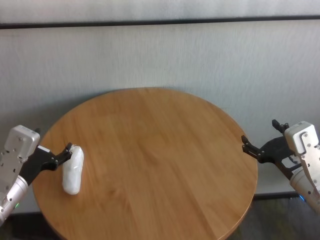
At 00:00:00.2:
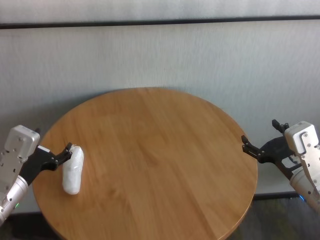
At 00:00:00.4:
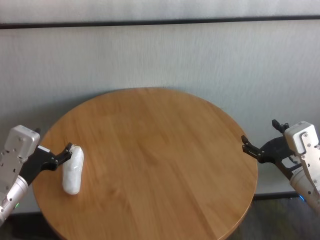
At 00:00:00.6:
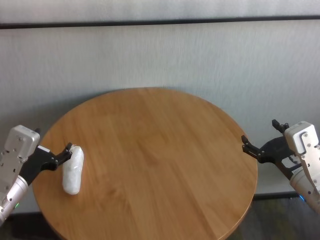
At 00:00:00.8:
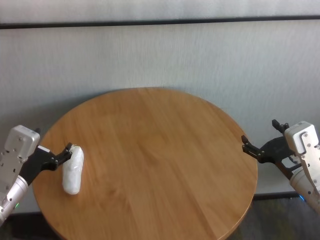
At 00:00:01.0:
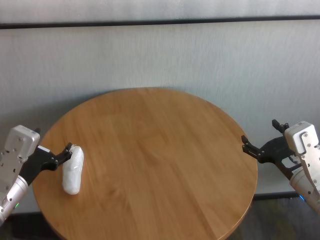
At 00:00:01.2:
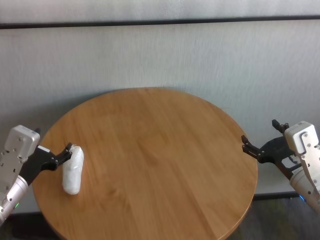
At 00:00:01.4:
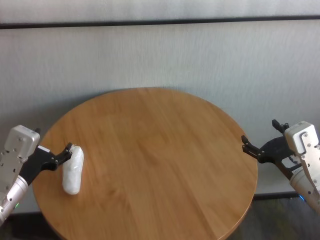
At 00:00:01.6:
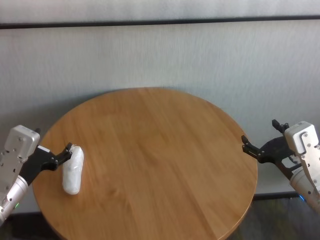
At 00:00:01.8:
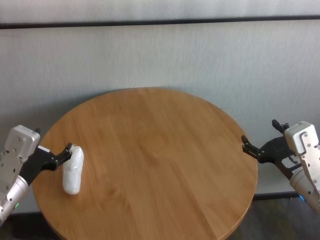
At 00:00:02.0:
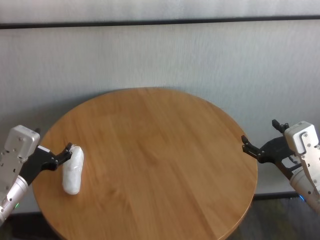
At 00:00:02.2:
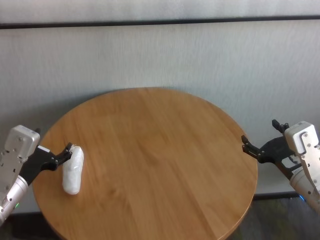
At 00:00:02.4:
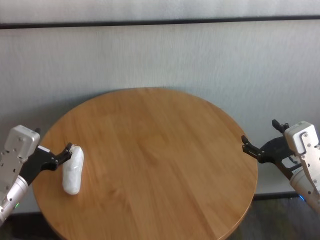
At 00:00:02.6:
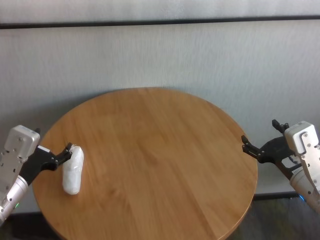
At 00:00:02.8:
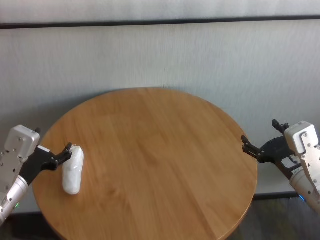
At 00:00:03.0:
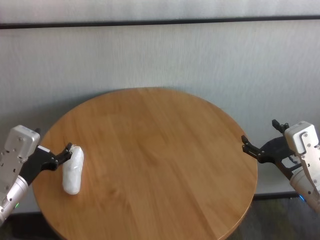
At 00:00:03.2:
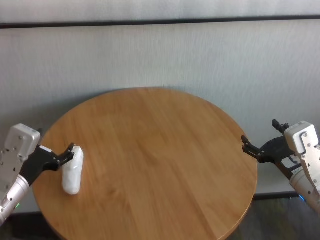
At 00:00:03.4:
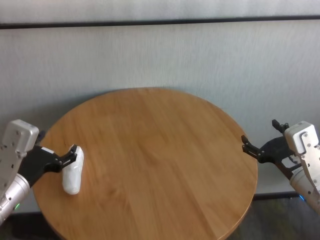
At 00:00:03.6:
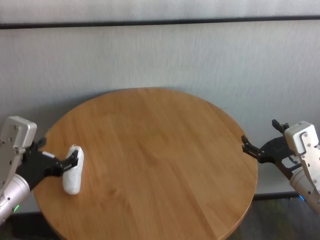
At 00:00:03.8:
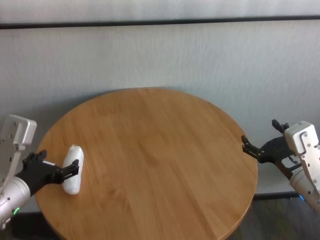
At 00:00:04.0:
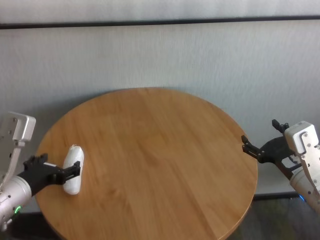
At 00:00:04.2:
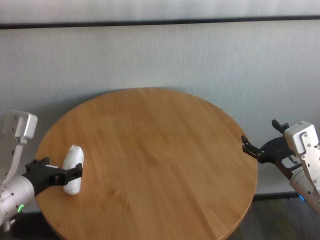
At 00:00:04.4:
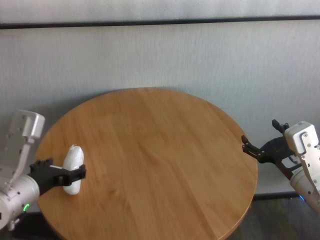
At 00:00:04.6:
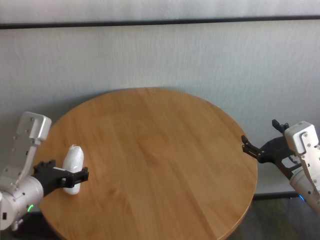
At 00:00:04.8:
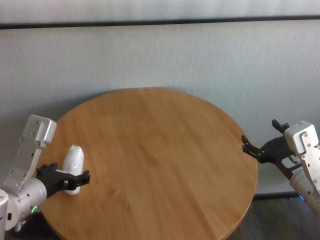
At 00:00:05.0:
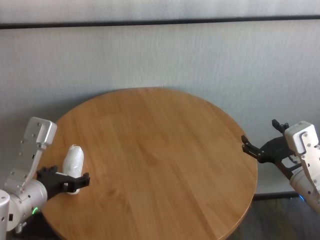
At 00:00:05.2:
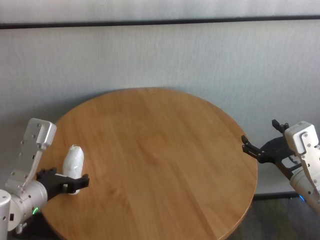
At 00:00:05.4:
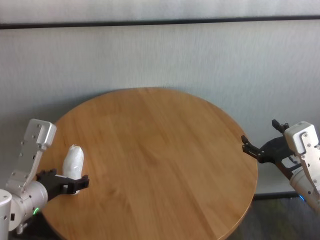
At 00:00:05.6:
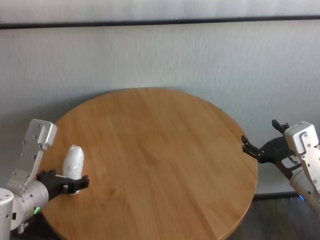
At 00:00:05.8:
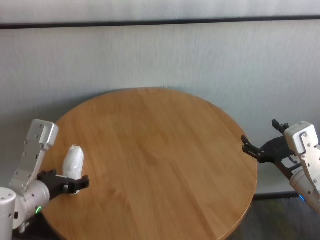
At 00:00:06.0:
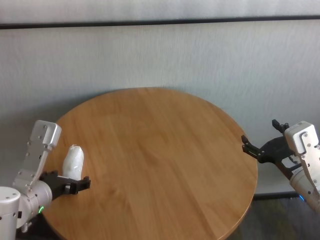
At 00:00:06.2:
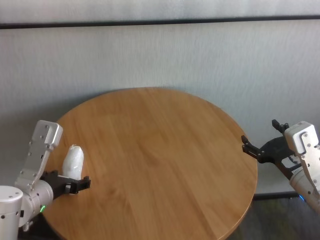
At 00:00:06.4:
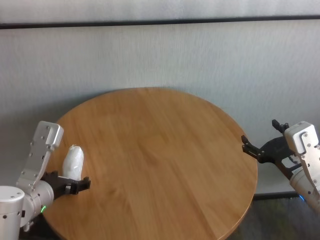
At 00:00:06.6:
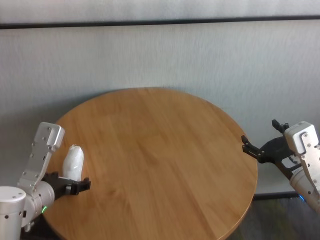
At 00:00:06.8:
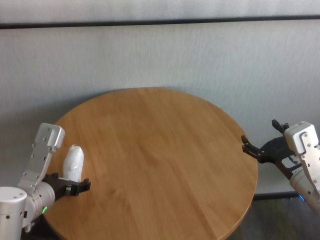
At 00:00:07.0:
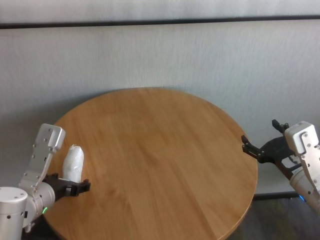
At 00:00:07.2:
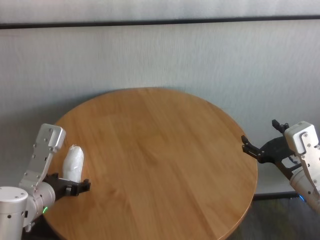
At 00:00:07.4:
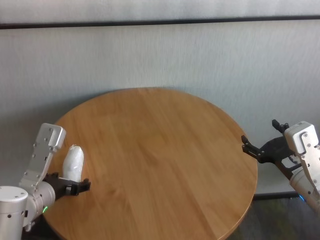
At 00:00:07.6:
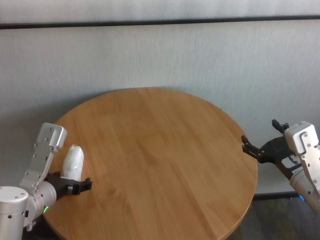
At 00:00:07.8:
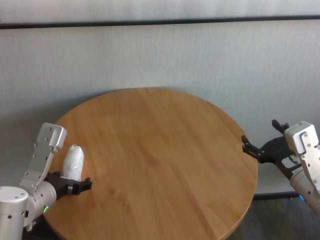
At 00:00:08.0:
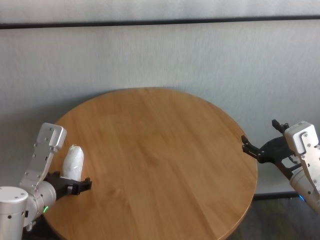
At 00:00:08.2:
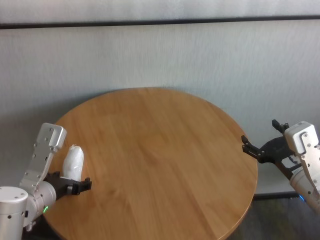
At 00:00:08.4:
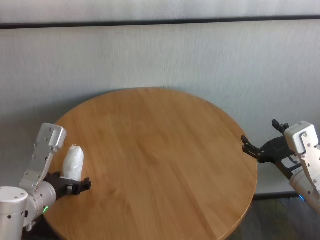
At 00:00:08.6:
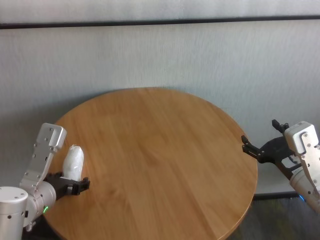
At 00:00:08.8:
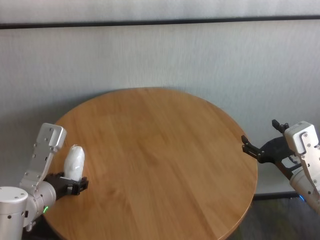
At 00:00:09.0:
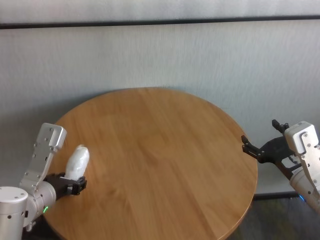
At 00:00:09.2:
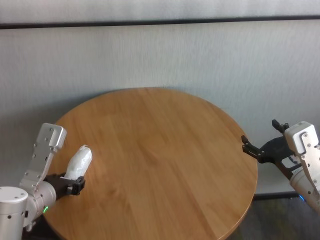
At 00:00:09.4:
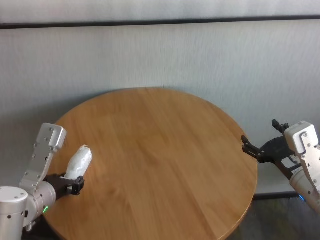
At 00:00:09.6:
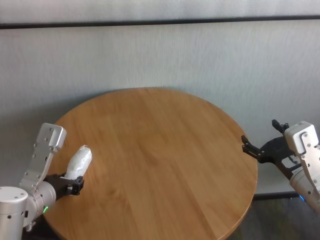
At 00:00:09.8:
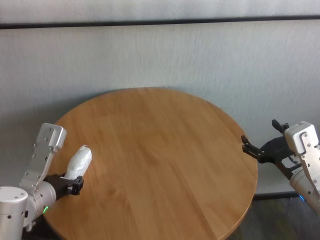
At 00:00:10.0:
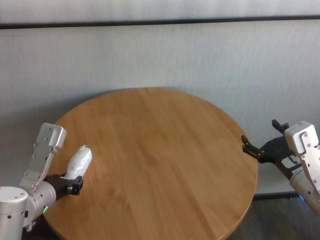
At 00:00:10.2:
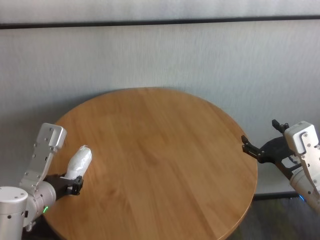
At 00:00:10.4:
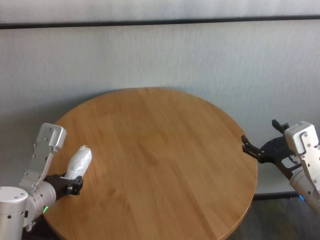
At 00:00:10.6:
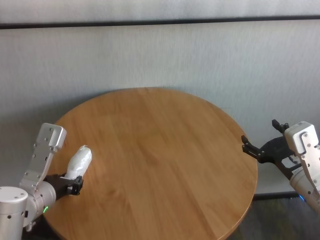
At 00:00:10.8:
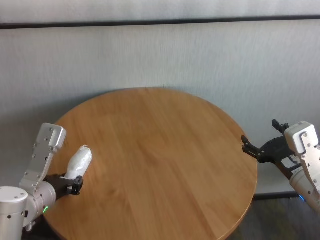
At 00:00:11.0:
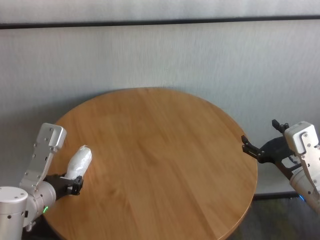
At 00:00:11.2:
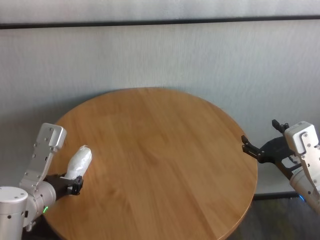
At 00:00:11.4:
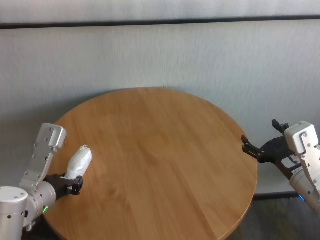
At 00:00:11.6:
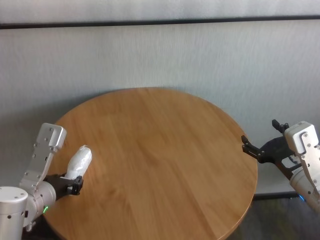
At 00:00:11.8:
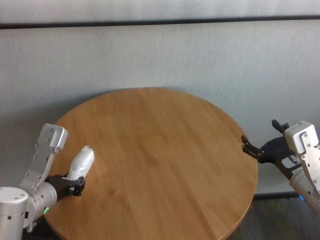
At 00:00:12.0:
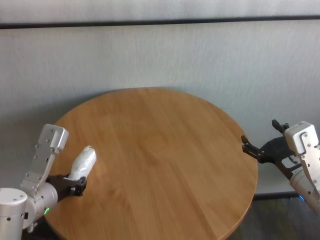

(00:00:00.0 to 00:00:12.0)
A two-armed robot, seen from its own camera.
Task of the whole recording: One hand took the sandbag from the other hand and placed it on the table.
Step, 00:00:00.0 - 00:00:10.6: Grasp the paper ball with left gripper.

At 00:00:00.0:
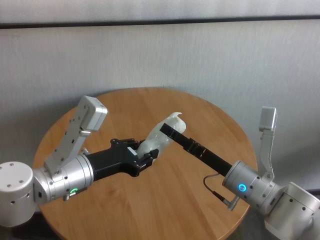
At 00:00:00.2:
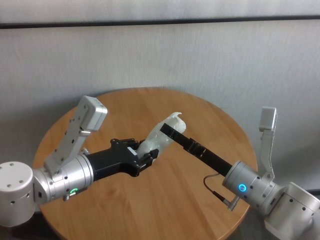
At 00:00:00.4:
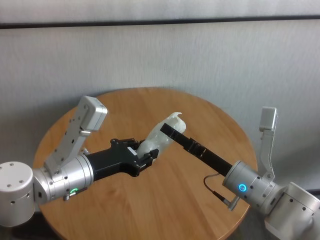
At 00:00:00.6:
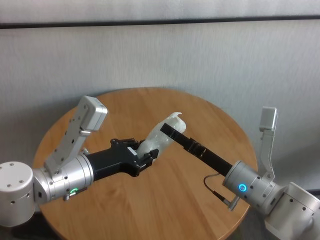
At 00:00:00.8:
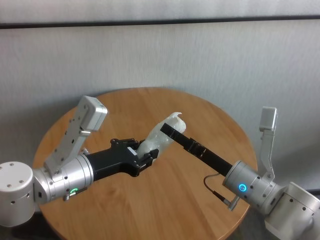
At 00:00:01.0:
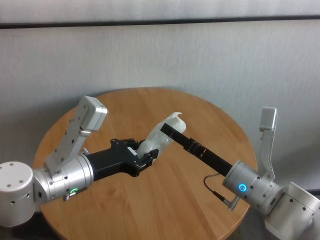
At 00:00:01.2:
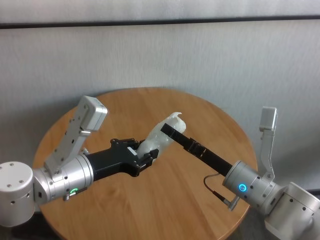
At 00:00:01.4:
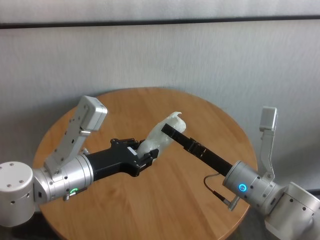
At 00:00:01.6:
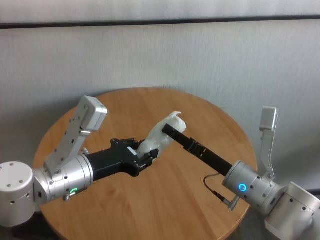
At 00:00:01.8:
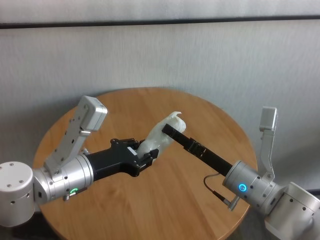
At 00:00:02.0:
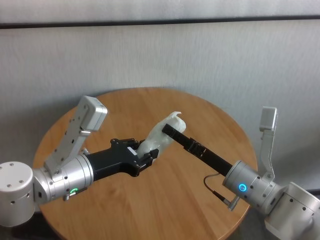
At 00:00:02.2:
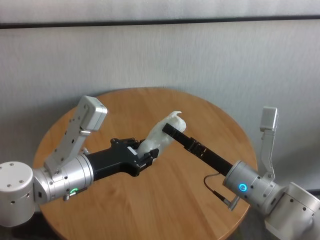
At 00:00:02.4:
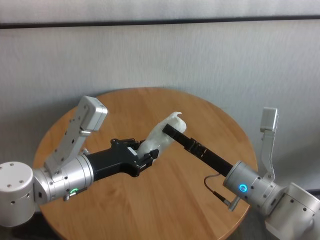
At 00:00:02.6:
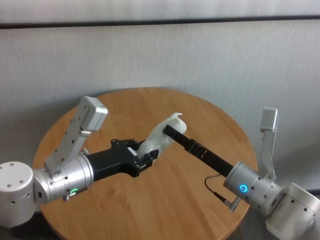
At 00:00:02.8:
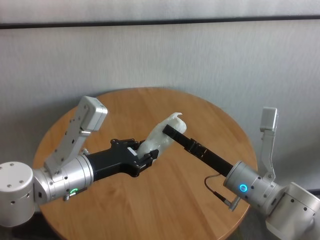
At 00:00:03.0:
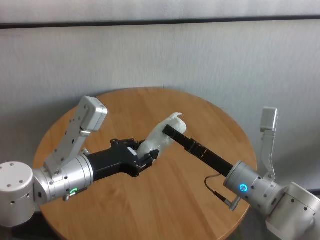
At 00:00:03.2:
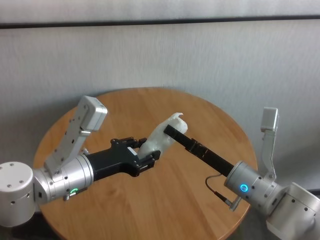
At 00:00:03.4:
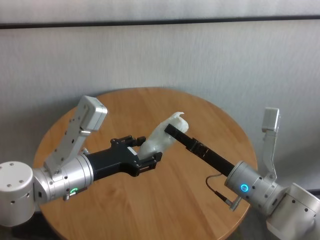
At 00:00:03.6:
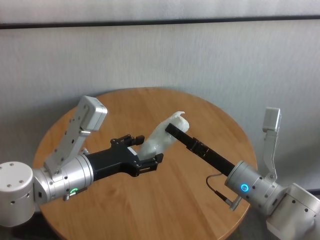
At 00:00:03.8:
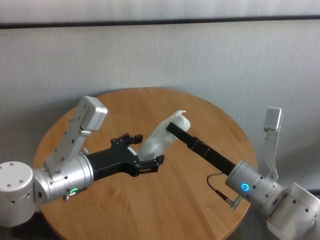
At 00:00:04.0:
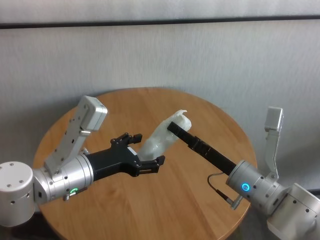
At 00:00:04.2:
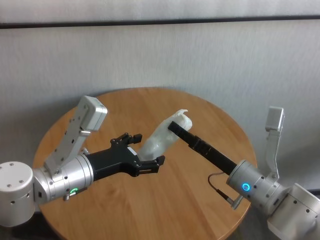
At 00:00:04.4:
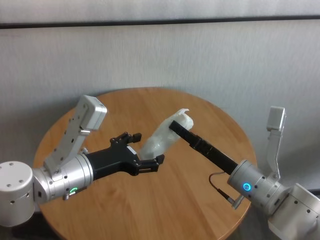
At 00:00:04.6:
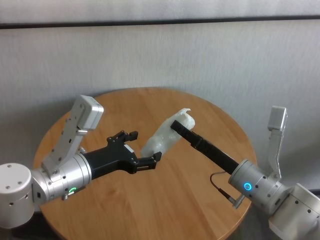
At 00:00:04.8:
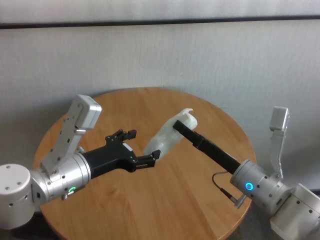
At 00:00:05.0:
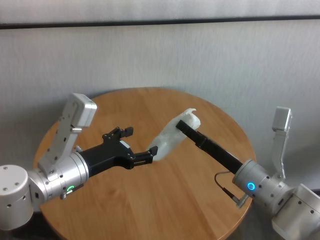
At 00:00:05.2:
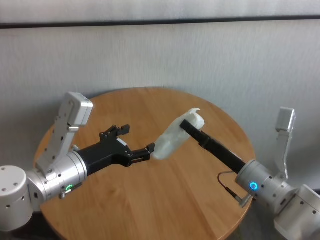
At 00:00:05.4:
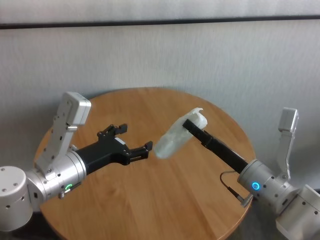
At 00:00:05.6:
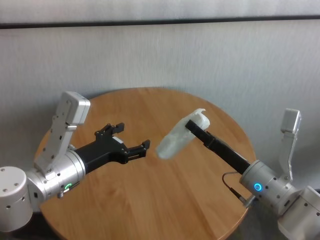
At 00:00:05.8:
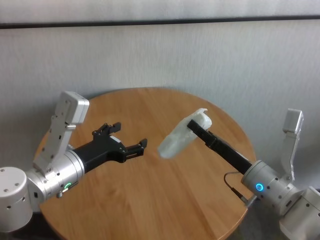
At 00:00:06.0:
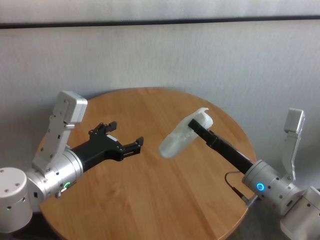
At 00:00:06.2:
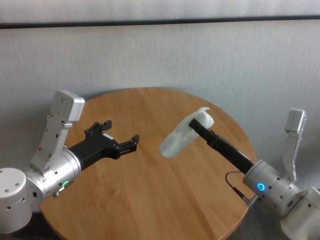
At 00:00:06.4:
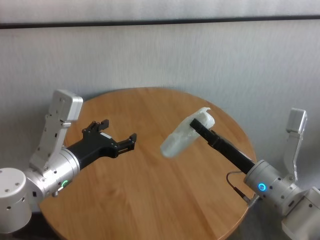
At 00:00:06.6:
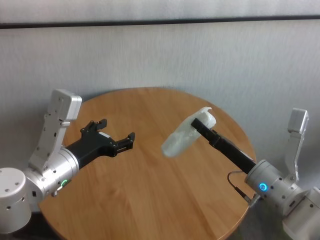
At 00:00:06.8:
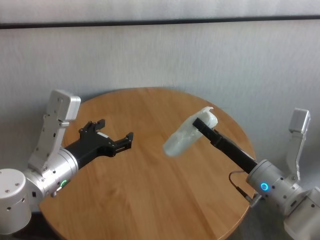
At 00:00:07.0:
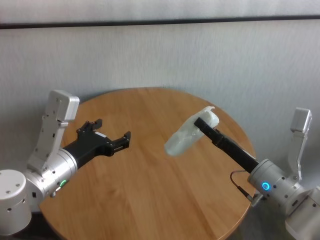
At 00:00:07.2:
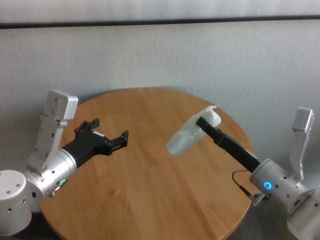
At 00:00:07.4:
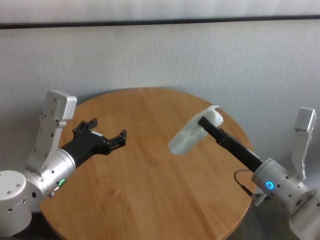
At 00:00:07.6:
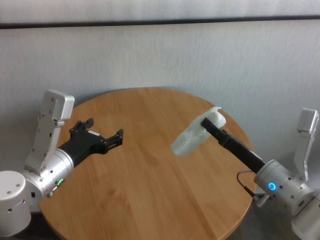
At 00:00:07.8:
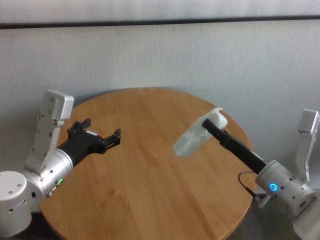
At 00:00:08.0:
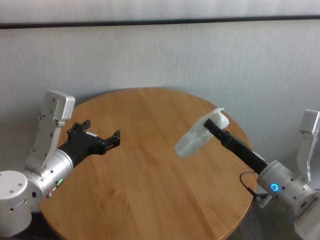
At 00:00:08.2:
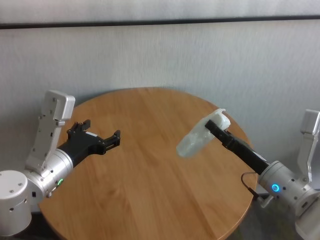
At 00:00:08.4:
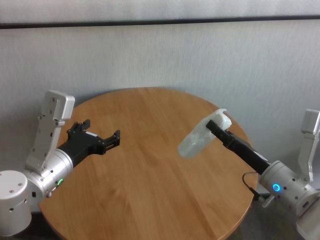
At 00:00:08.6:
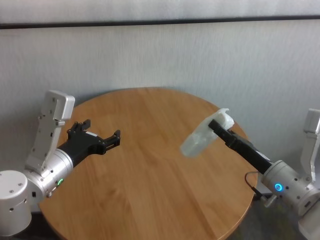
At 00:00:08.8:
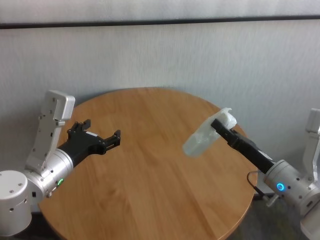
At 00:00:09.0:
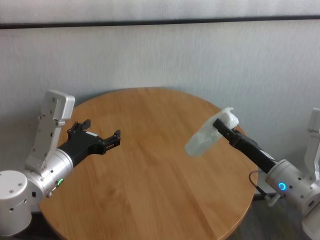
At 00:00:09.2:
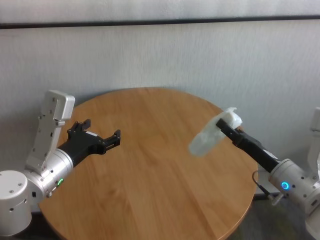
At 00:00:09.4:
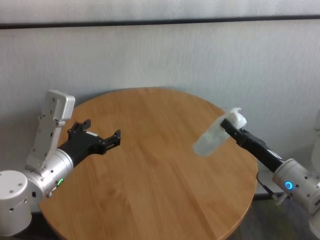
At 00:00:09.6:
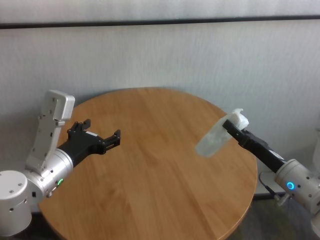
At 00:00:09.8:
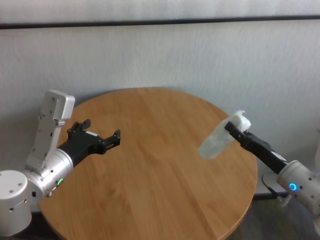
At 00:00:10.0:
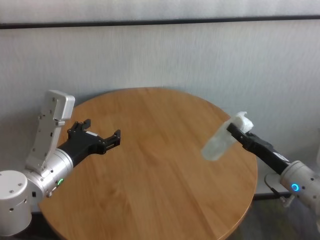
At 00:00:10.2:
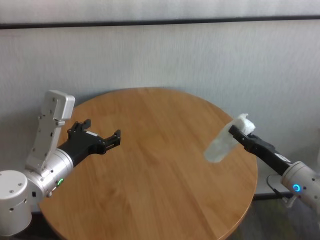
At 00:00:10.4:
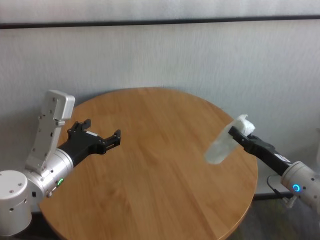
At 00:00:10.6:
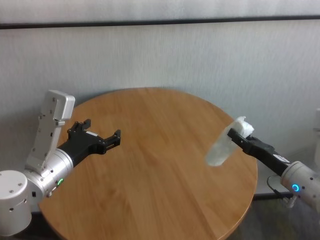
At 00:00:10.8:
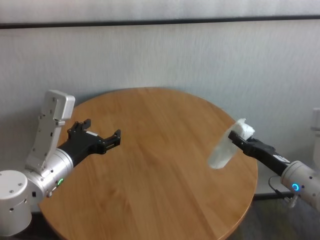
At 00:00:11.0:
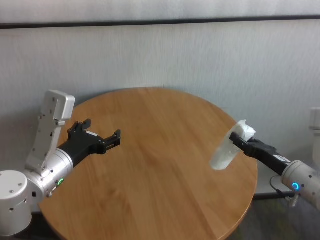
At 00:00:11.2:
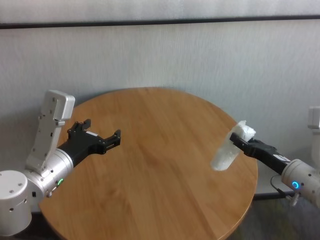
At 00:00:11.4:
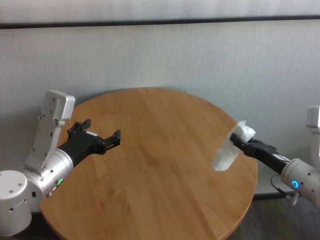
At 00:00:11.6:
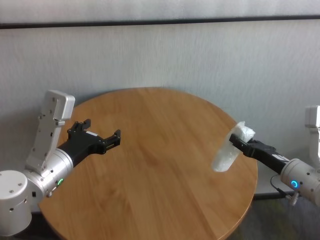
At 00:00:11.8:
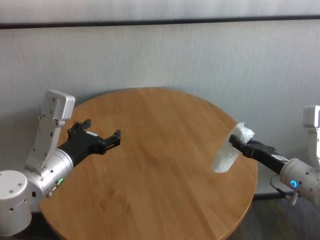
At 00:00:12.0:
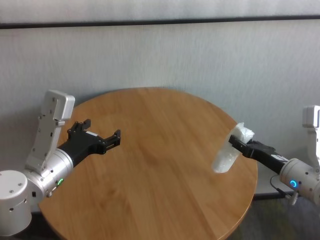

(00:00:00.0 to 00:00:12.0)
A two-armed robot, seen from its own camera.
Task of the whole recording: One hand took the sandbag from the other hand and placed it on the table.
Step, 00:00:00.0 - 00:00:05.0: Pass the paper ball to the right gripper.
